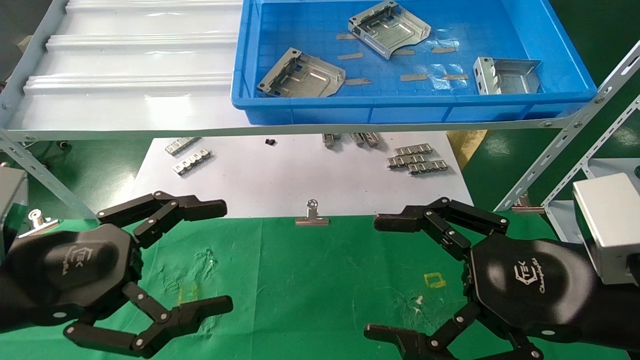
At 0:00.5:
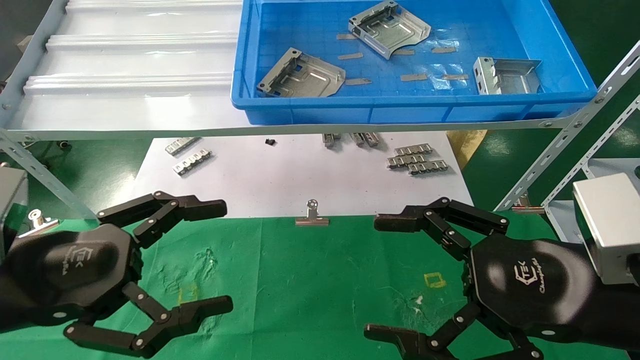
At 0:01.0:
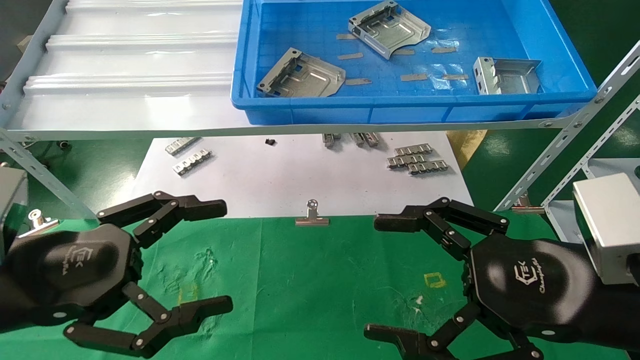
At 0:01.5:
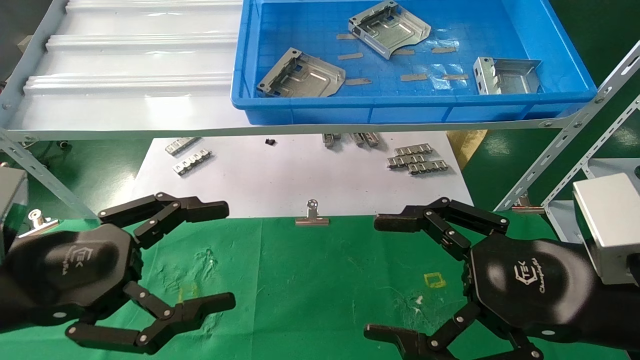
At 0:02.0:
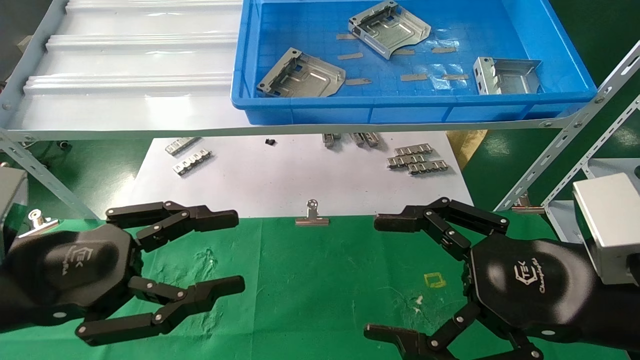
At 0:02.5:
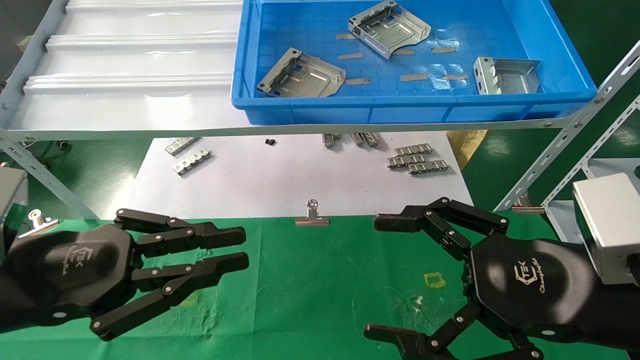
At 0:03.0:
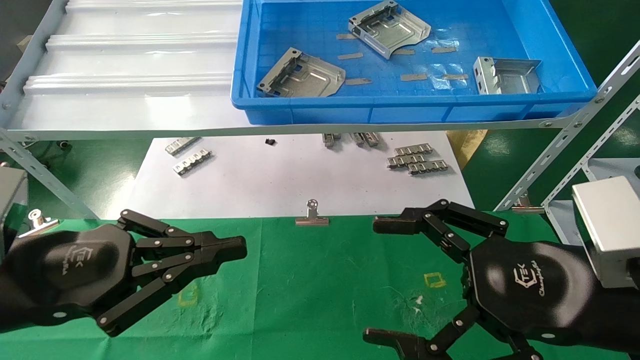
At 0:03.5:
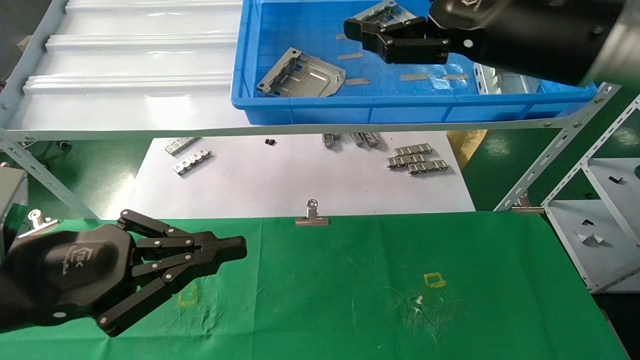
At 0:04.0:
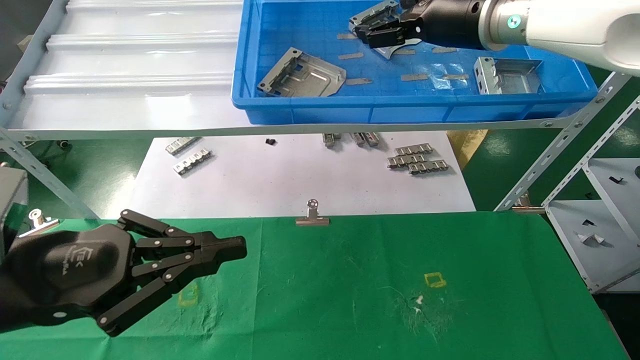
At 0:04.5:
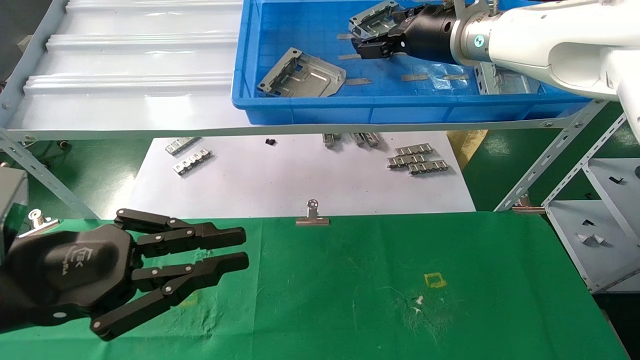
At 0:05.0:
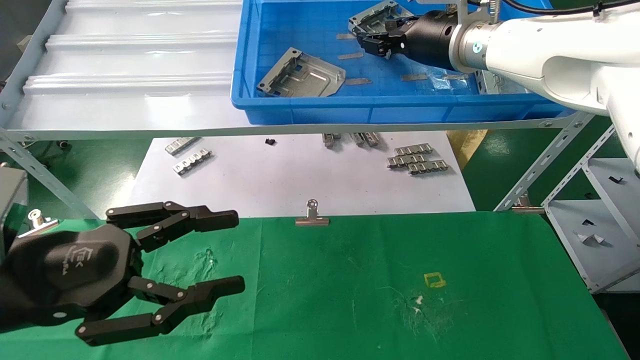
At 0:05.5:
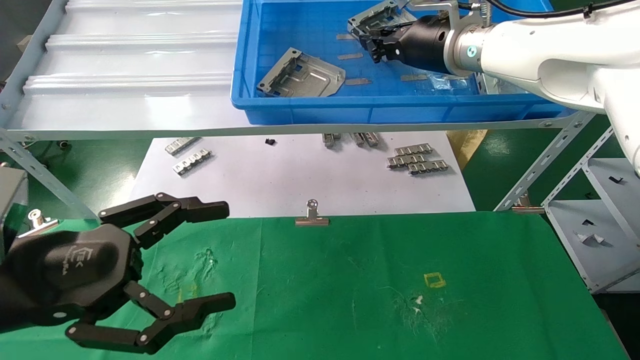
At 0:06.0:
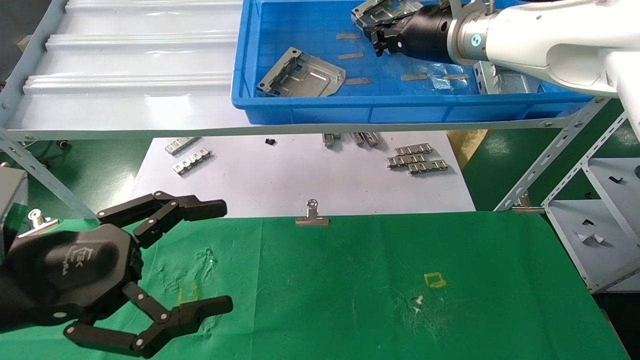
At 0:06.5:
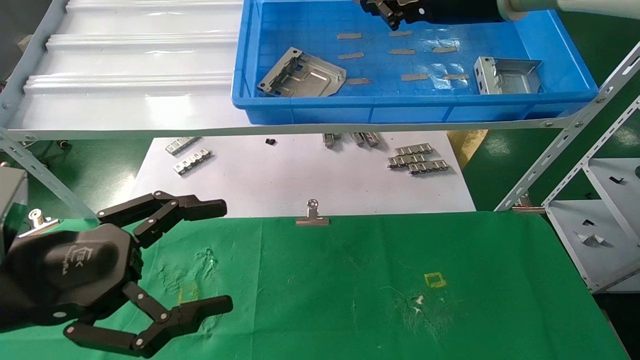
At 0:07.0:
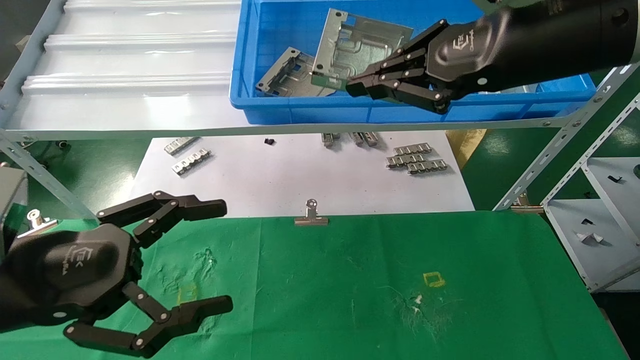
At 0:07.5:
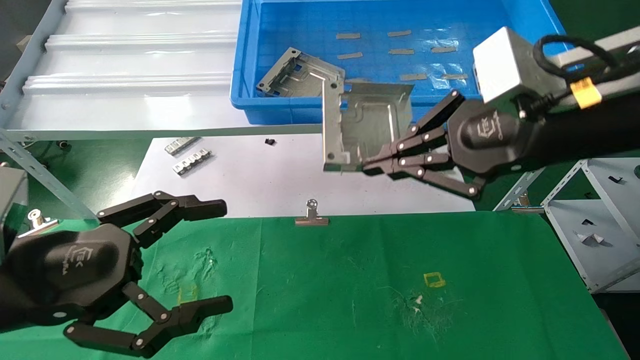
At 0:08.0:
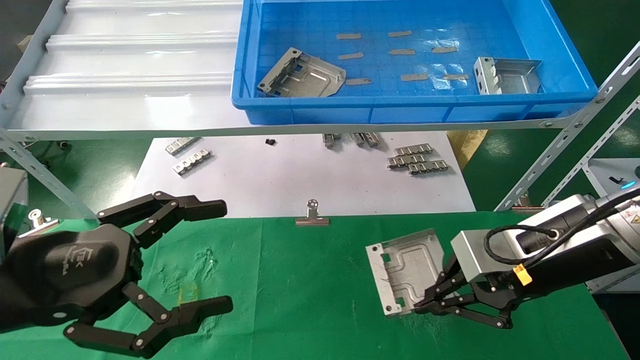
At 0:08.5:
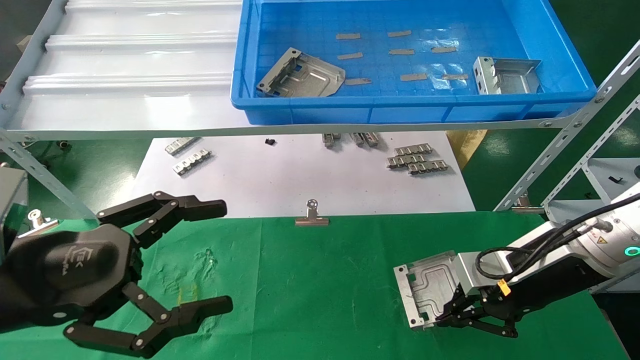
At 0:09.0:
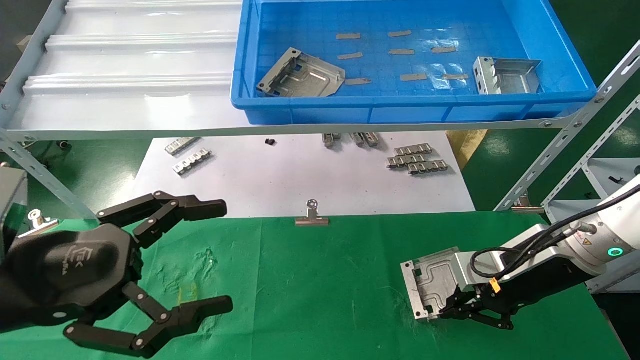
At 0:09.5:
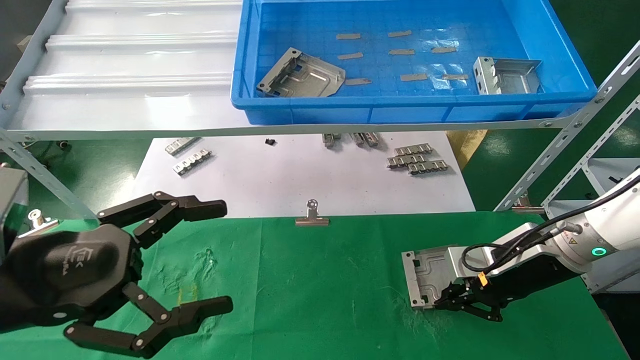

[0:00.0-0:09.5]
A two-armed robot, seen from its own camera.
Task of the whole recording: use the mechanical arm to pick up the parts and place them on the table.
Step, 0:02.0 to 0:07.0: Pick up the hard drive bracket from the feeding area.
0:00.0 to 0:02.0: Both grippers stay put.
0:02.0 to 0:04.0: The right gripper is displaced forward and upward by roughly 30 cm, while the left gripper closes up.
0:04.0 to 0:05.5: The right gripper closes its fingers. Meanwhile the left gripper opens.
0:05.5 to 0:07.5: The right gripper heads backward, covering some 20 cm.
0:07.5 to 0:09.5: The right gripper is displaced downward and forward by approximately 20 cm.

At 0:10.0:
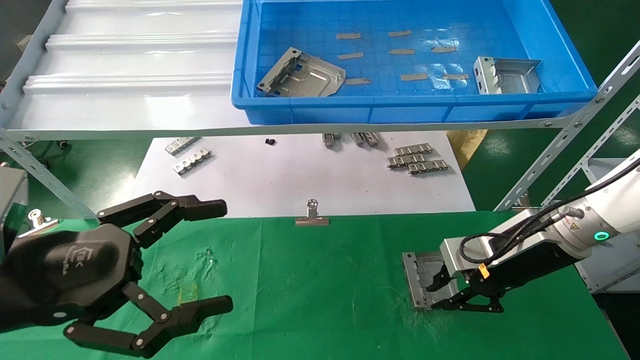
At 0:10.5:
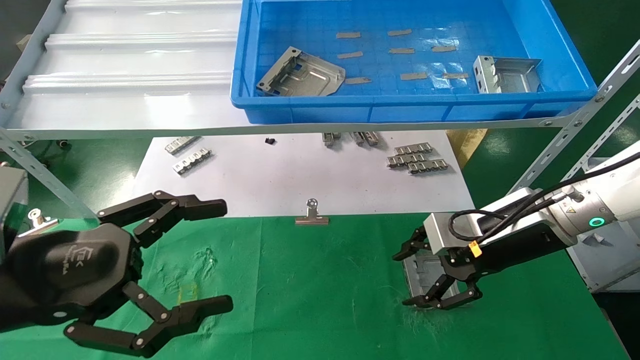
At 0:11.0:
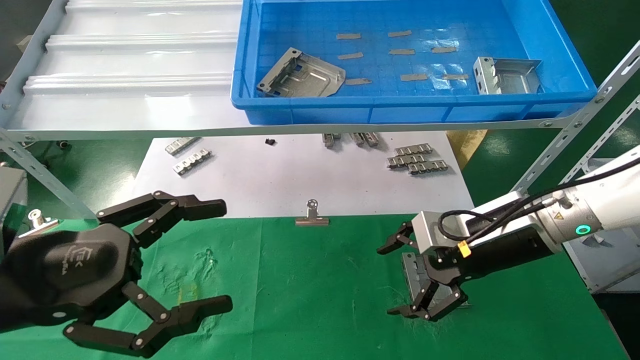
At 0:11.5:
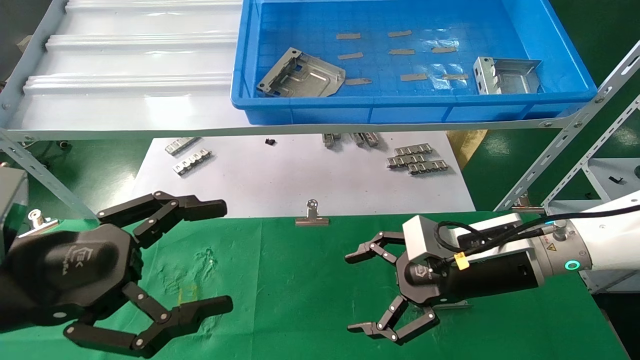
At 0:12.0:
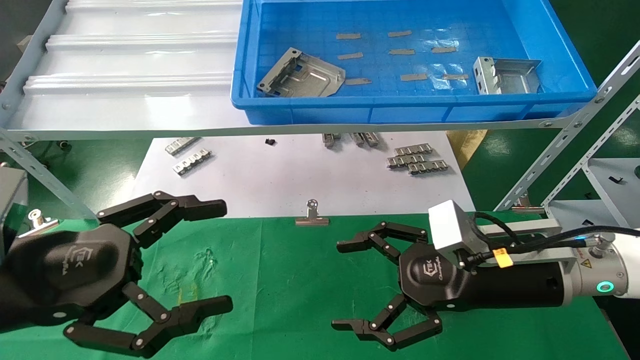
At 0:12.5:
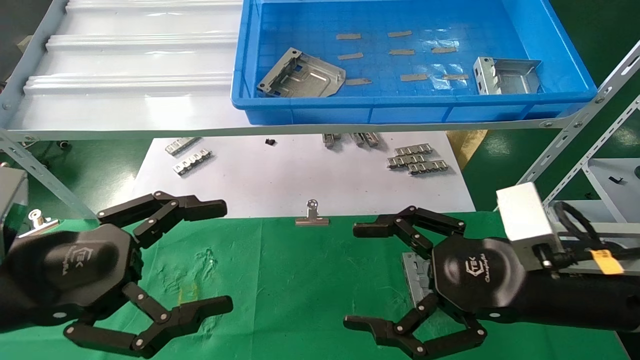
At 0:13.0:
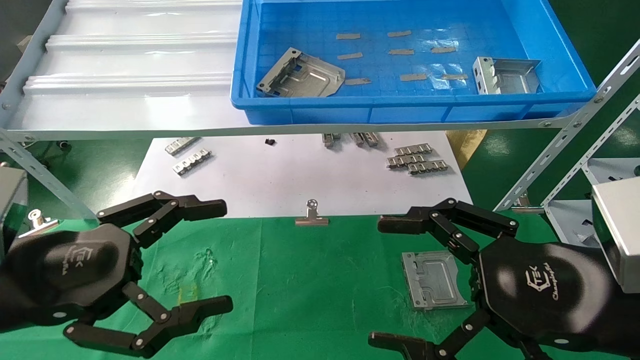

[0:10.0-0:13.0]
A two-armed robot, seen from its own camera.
Task of the whole recording: use the mechanical arm to pick up the parts and place them on the table.
0:10.0 to 0:11.5: The right gripper is displaced to the left by approximately 5 cm, and opens its fingers.
0:11.5 to 0:13.0: The right gripper travels backward by some 15 cm.
